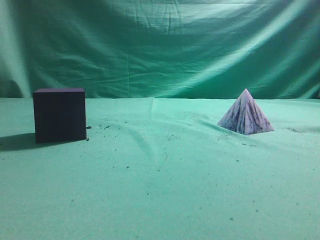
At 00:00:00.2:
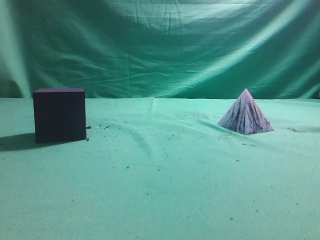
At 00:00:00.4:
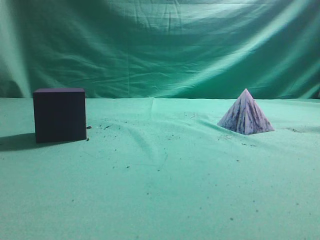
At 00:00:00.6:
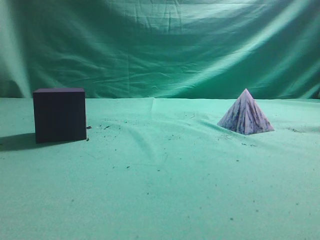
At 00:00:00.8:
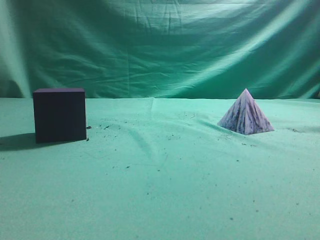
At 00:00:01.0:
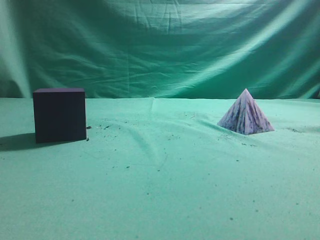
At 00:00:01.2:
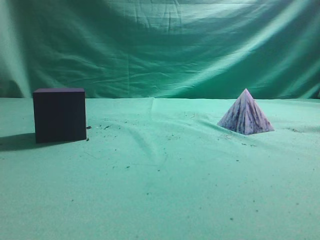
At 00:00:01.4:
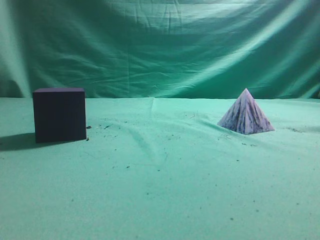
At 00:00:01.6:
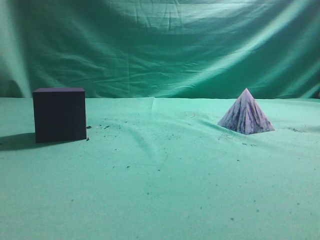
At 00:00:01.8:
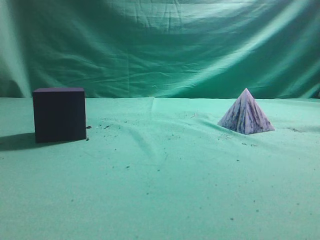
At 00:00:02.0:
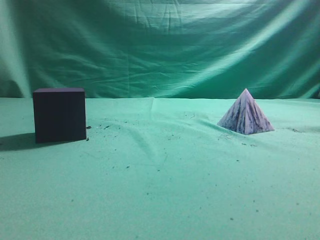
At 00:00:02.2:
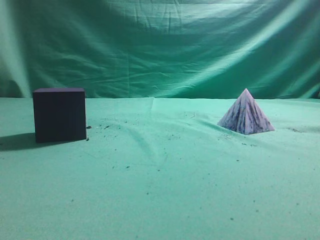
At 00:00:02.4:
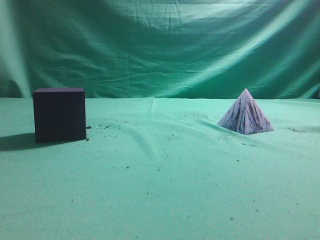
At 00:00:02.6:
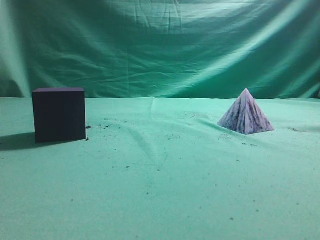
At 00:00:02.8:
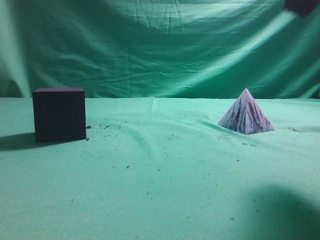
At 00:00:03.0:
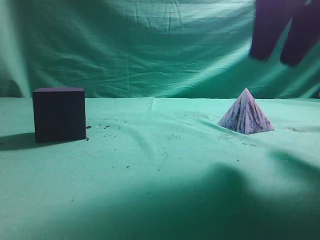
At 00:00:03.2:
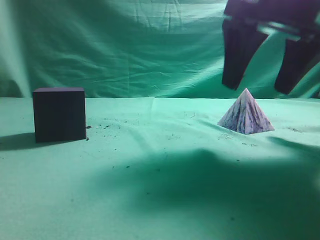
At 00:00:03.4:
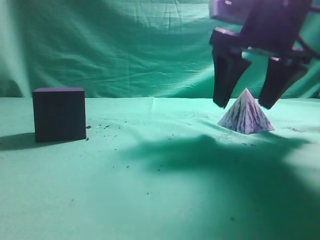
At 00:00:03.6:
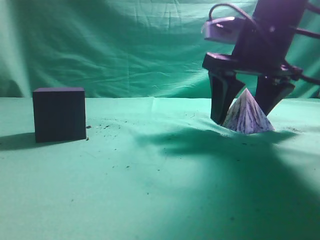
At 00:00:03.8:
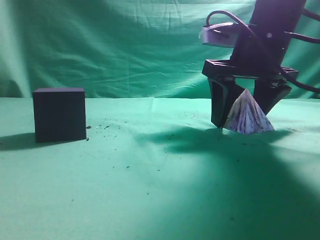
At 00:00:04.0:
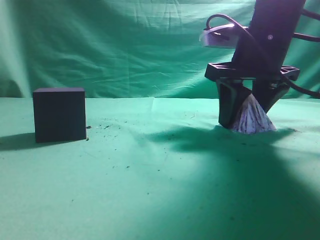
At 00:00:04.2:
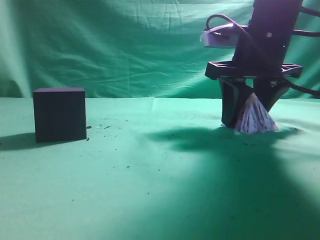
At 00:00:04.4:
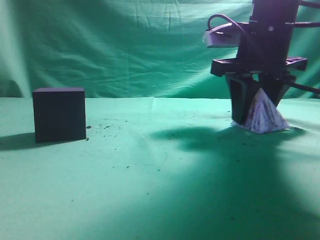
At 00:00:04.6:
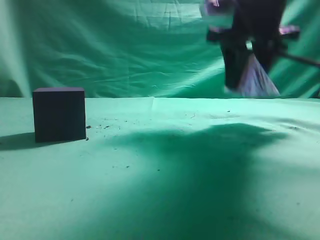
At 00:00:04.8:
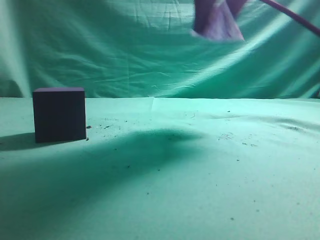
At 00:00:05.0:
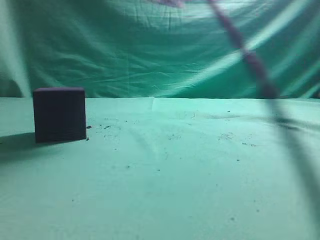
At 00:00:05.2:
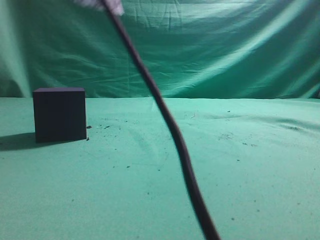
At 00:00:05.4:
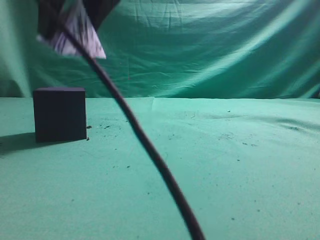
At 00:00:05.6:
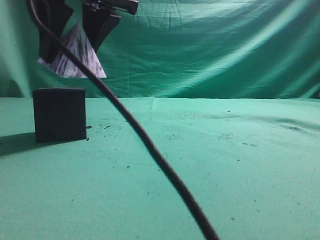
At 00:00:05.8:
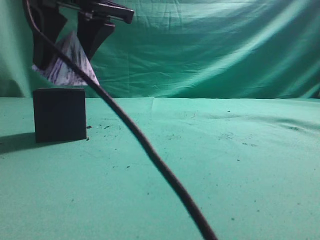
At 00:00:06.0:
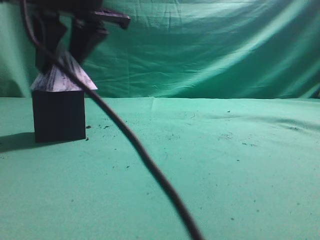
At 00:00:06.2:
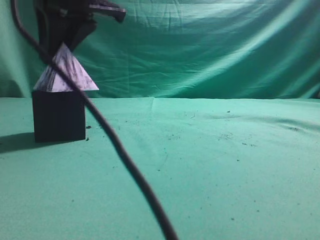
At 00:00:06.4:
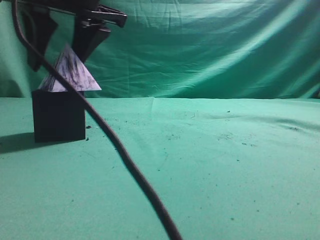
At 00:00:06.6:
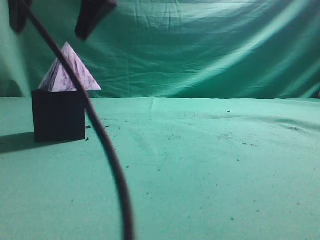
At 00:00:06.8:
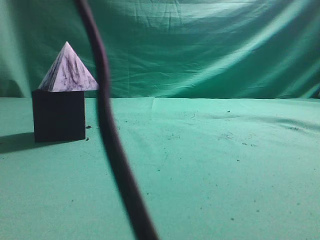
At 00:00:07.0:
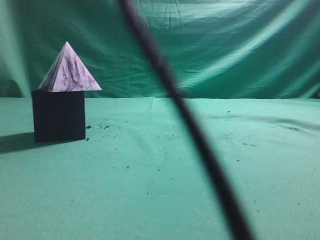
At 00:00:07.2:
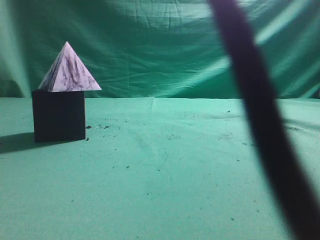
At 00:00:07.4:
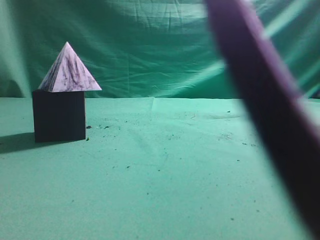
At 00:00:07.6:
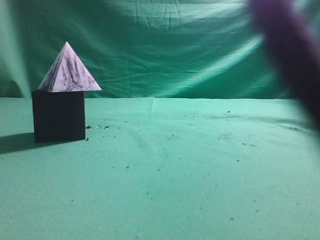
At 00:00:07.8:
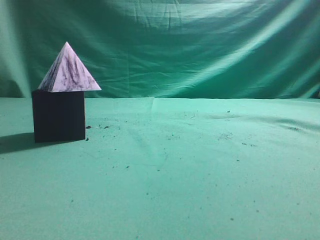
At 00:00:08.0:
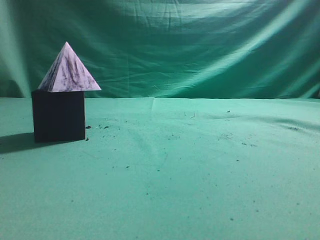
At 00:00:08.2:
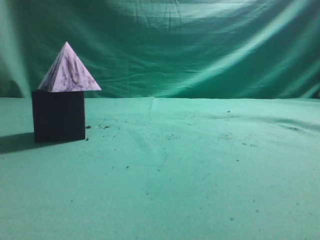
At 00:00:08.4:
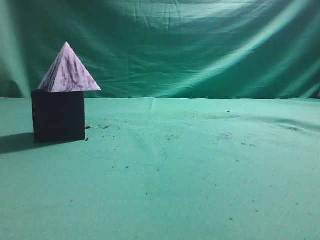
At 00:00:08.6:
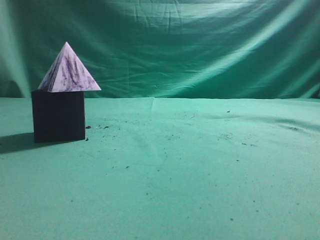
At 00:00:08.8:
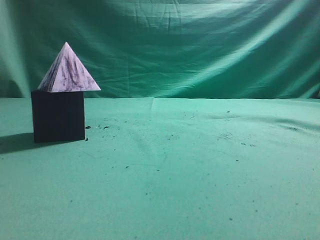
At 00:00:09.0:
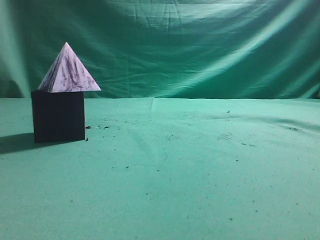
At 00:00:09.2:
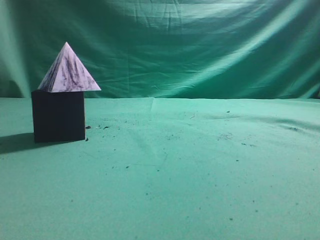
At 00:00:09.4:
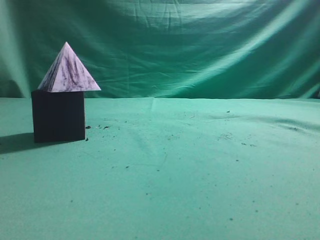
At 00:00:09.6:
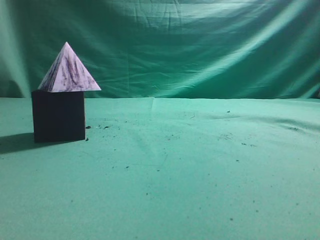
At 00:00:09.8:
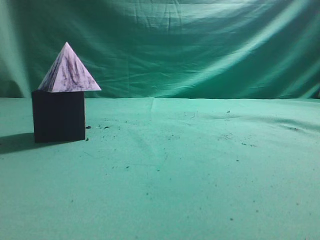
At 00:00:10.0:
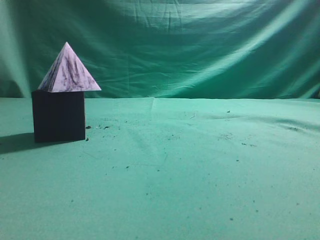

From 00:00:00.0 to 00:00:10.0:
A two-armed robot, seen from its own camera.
Task of the whole recording: pick up the square pyramid from the table and place it on the cube block.
Step, from 00:00:00.0 to 00:00:04.4: Grasp the triangular block.
Step, from 00:00:04.6 to 00:00:06.6: Place the block onto the cube-shaped block.
From 00:00:01.4 to 00:00:02.8: The right gripper is displaced forward, upward and to the left by about 25 cm.
From 00:00:02.8 to 00:00:04.2: The right gripper shifts approximately 20 cm downward and forward, and opens up.
From 00:00:04.2 to 00:00:05.8: The right gripper goes about 20 cm to the left.
From 00:00:05.8 to 00:00:07.2: The right gripper is displaced upward by some 20 cm, and closes its fingers.
From 00:00:07.2 to 00:00:08.6: The right gripper travels to the right and backward by about 35 cm.
